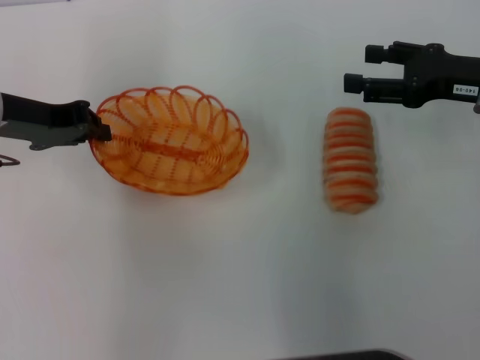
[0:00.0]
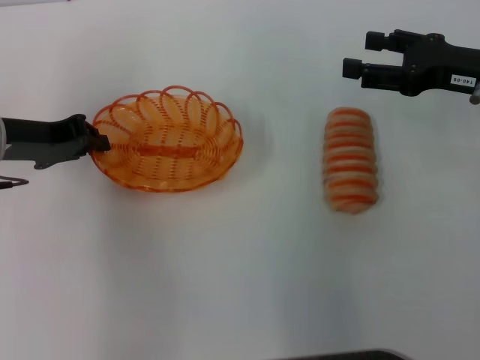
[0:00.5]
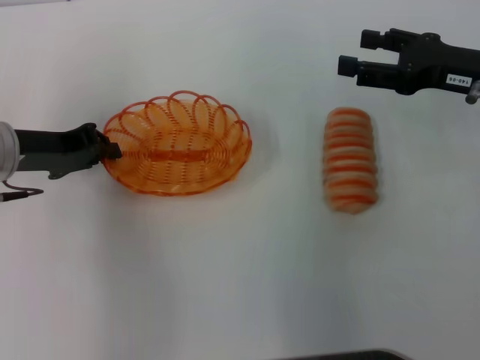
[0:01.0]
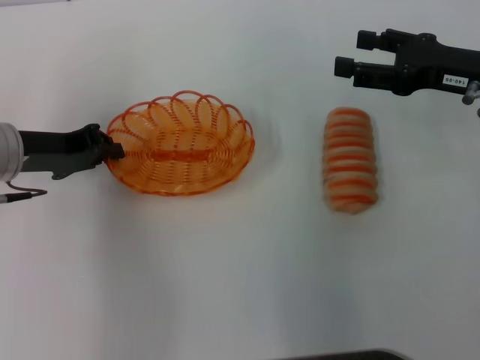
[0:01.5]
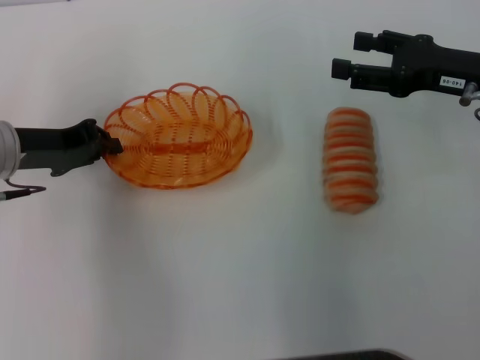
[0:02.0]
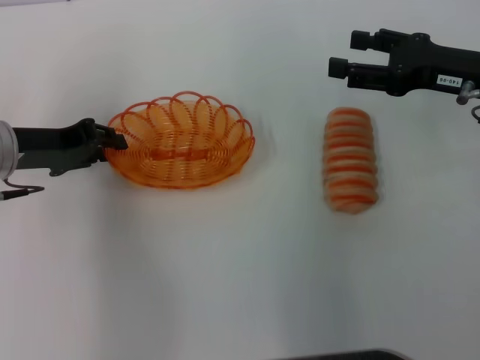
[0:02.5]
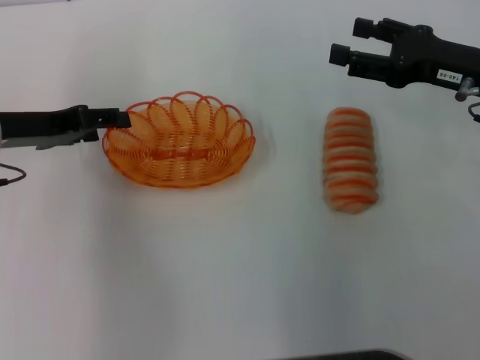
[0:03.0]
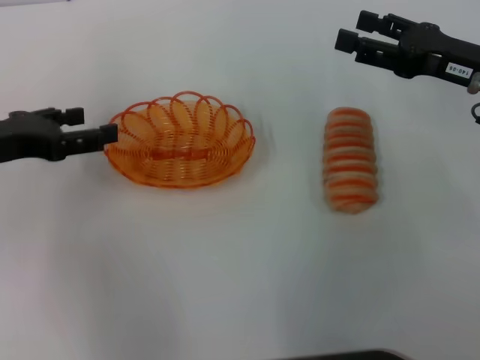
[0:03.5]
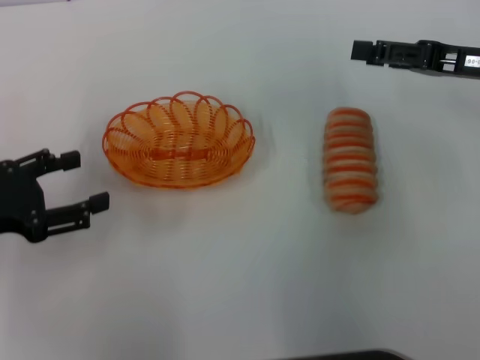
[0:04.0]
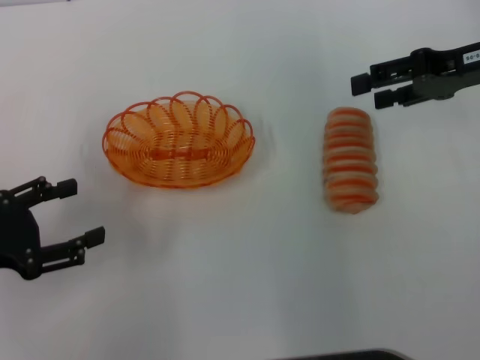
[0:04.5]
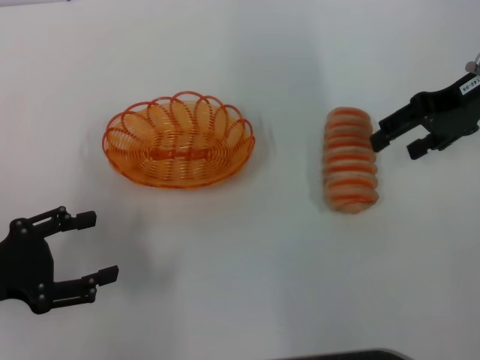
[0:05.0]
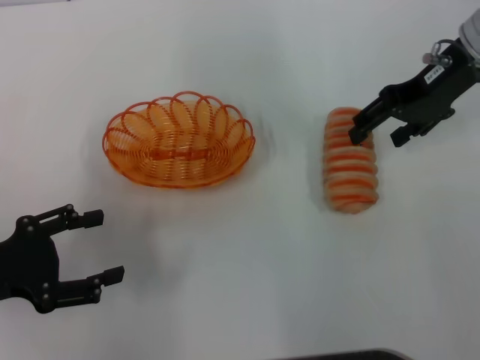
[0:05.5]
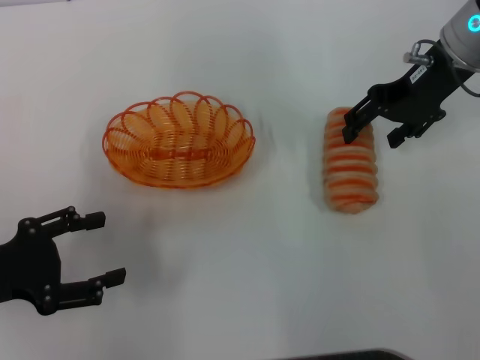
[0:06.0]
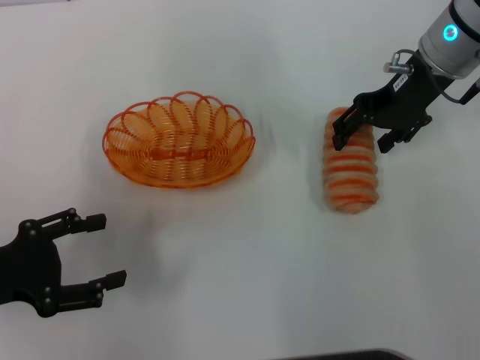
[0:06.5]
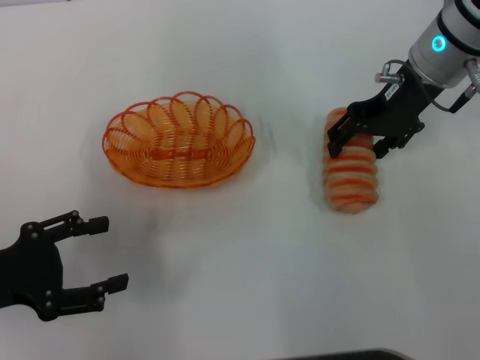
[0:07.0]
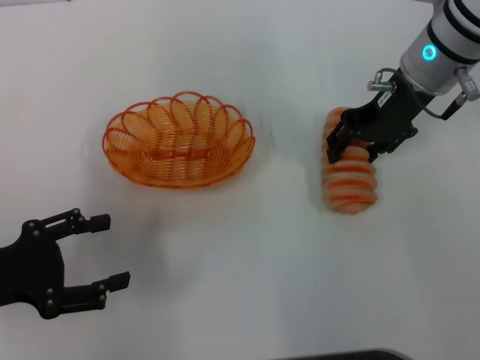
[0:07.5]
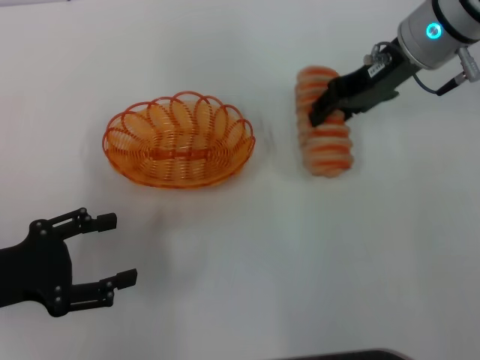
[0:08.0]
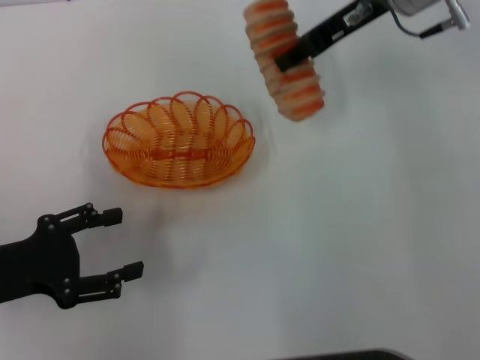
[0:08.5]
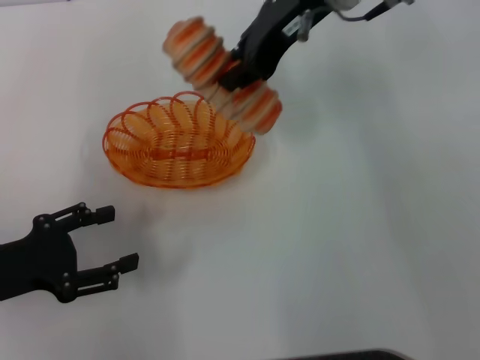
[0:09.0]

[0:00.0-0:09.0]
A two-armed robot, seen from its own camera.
Step, 0:00.0 to 0:03.0: Place the basket in the center of view with the left gripper.
Step, 0:03.5 to 0:07.5: Pick up the long bread with the right gripper.
0:00.0 to 0:02.0: The left gripper shifts by some 5 cm.
0:02.0 to 0:04.5: The right gripper heads upward, covering approximately 5 cm. Meanwhile the left gripper shifts roughly 15 cm backward and to the left, and opens up.
0:04.5 to 0:07.0: The right gripper heads to the left, covering about 10 cm.
0:07.0 to 0:09.0: The right gripper travels to the left and upward by roughly 10 cm, and closes its fingers.

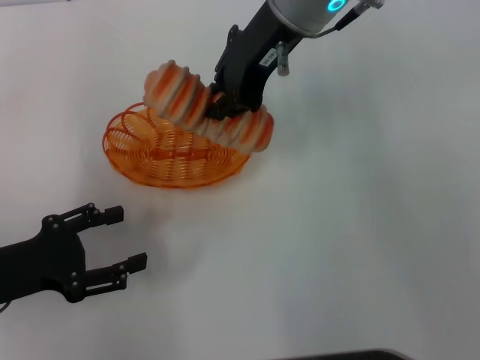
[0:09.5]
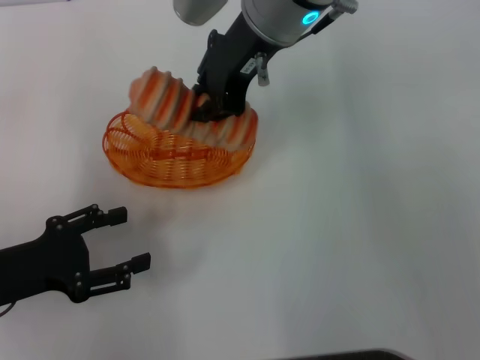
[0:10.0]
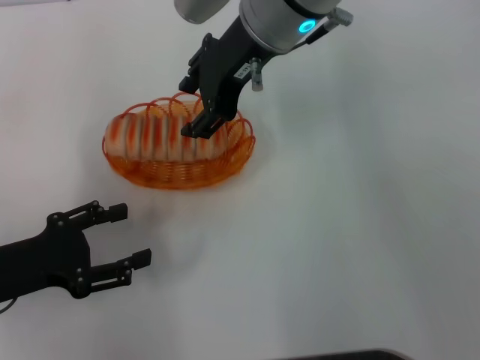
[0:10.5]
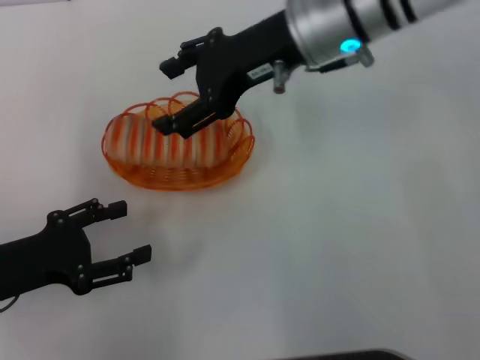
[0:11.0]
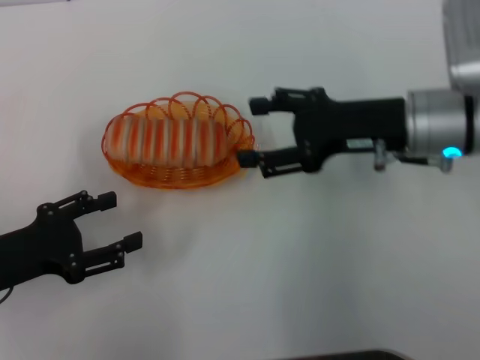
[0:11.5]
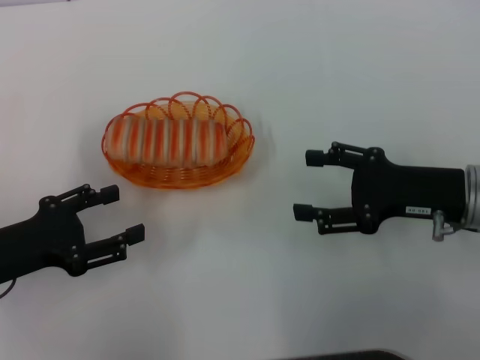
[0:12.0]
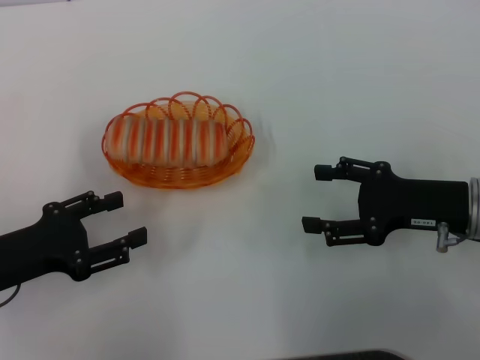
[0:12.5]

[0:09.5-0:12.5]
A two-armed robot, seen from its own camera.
0:09.5 to 0:11.0: The right gripper opens.
0:11.0 to 0:12.5: The right gripper shifts roughly 25 cm to the right, downward and backward.

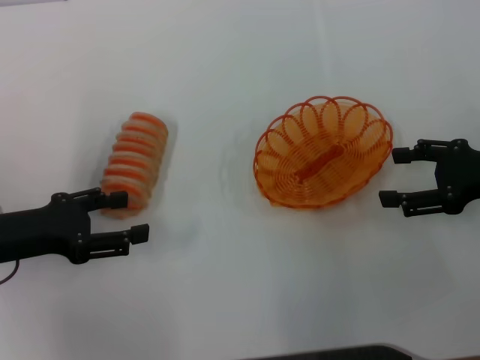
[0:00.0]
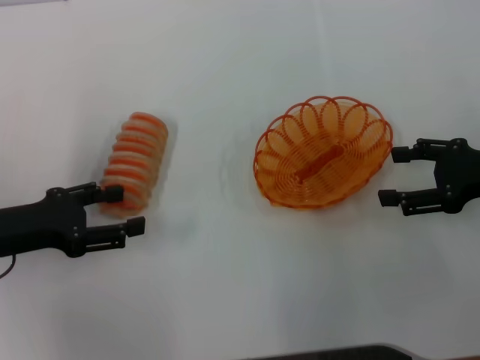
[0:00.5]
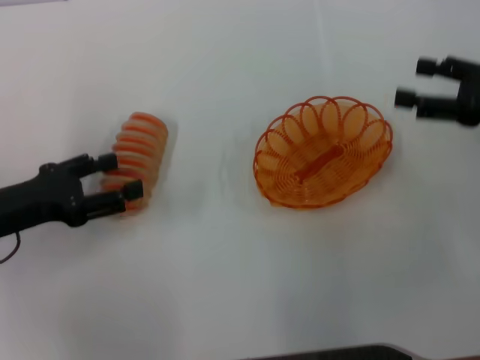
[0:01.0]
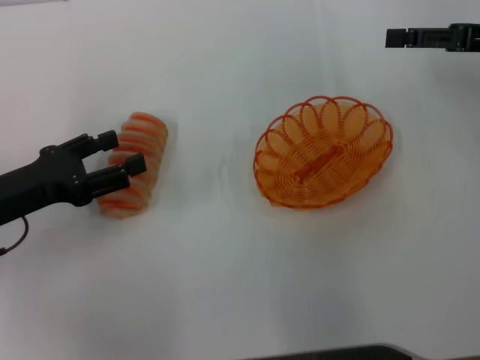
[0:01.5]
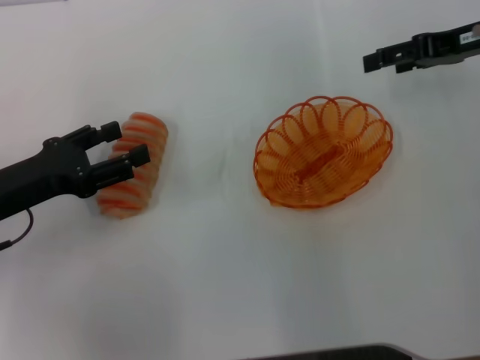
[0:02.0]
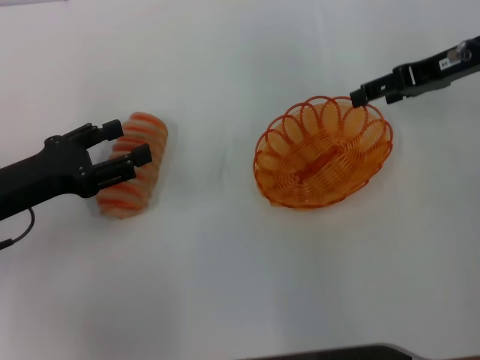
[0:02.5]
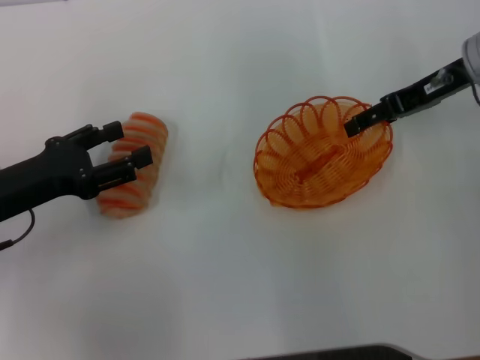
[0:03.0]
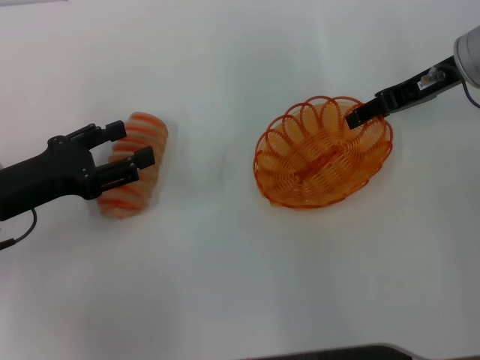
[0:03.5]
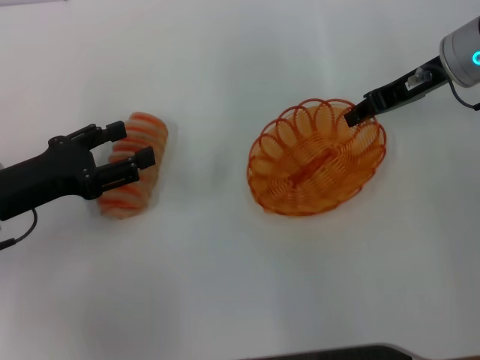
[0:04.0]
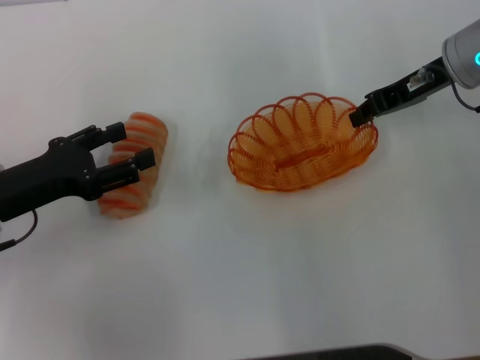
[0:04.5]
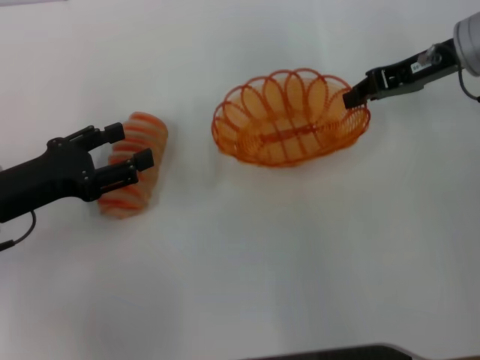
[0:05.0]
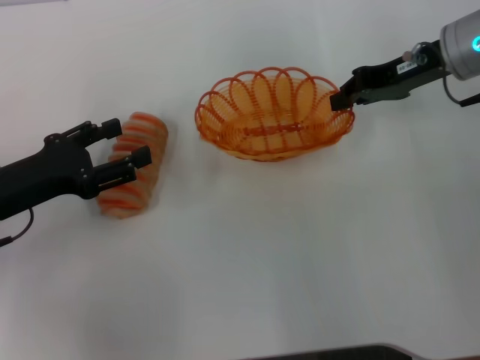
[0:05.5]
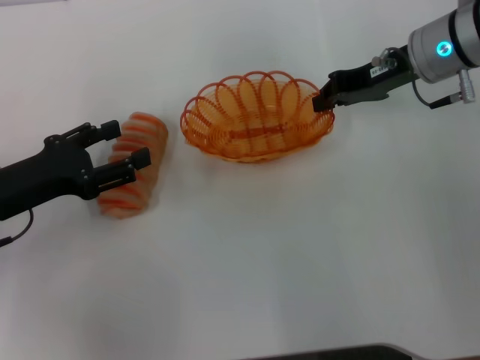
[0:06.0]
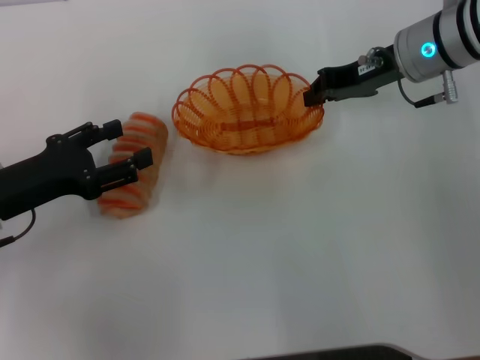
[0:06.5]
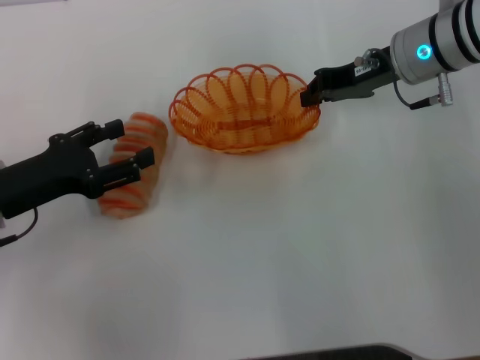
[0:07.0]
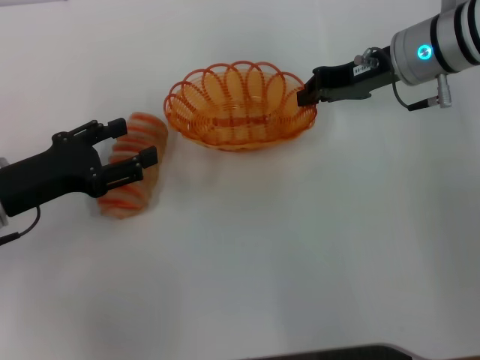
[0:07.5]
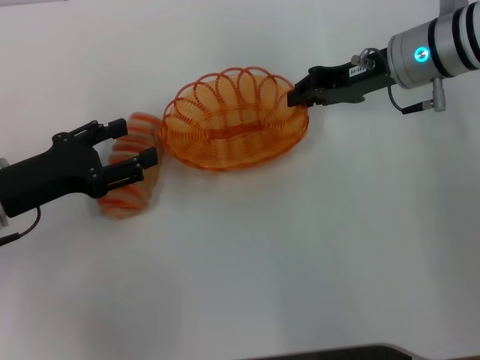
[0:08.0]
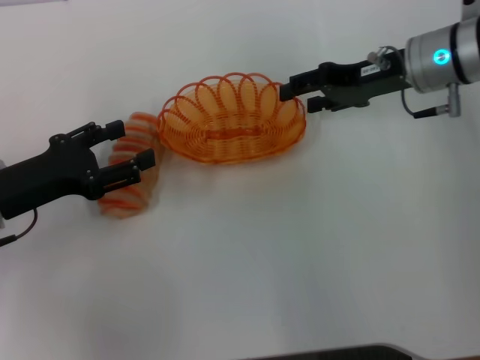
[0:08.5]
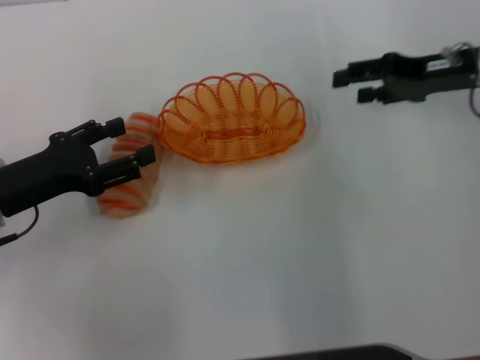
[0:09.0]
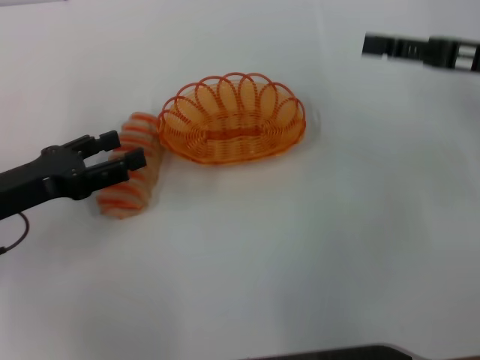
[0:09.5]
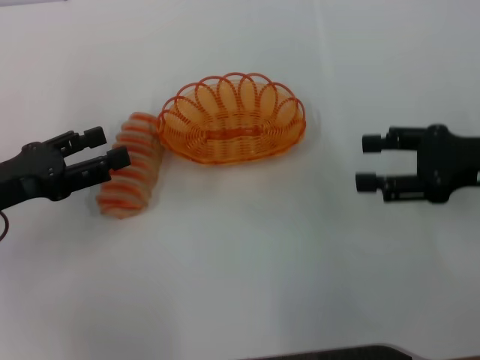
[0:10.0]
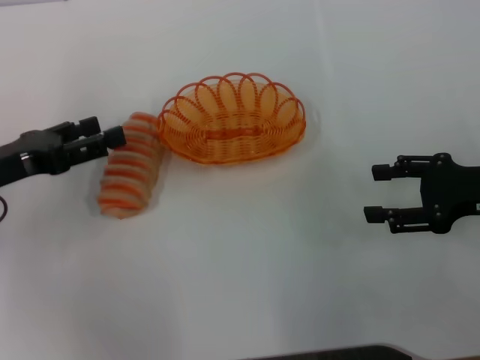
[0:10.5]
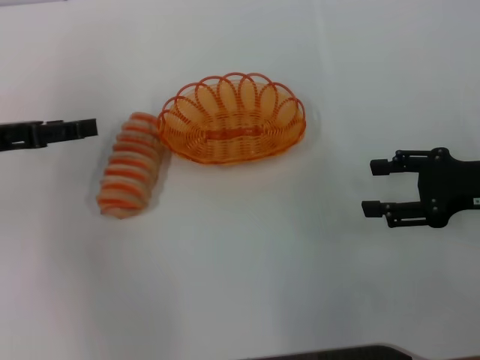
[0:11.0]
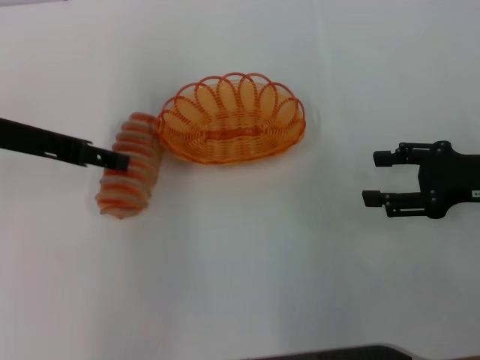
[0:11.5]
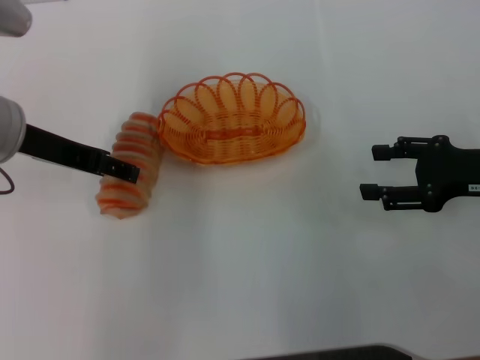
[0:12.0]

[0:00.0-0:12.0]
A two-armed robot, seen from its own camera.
Step, 0:00.0 to 0:04.5: Pick up the basket with the right gripper.
Step, 0:05.0 to 0:08.5: Place the basket in the center of view with the right gripper.
0:00.0 to 0:02.0: The right gripper is displaced forward and upward by roughly 15 cm.
0:02.0 to 0:04.0: The right gripper is displaced to the left by about 5 cm, and closes up.
0:04.0 to 0:06.0: The grippers make only small movements.
0:06.0 to 0:08.0: The grippers move only a little.
0:08.0 to 0:10.0: The right gripper shifts some 15 cm backward and to the right, and opens.
0:10.0 to 0:12.0: The left gripper moves to the right, upward and forward, approximately 15 cm.

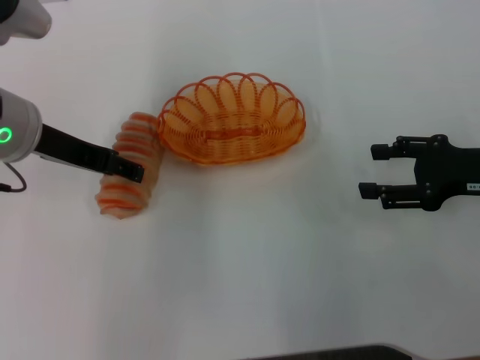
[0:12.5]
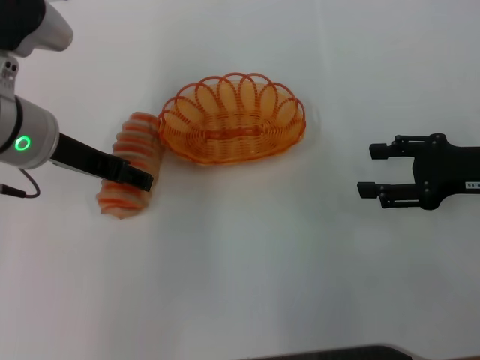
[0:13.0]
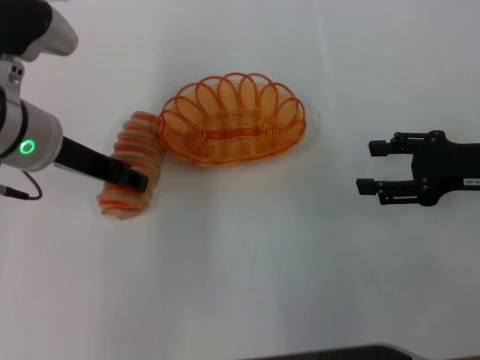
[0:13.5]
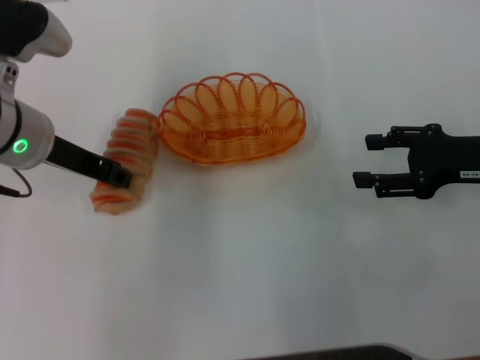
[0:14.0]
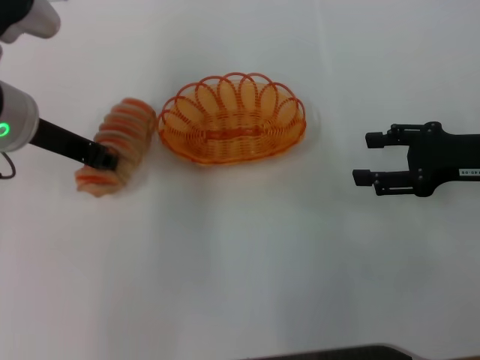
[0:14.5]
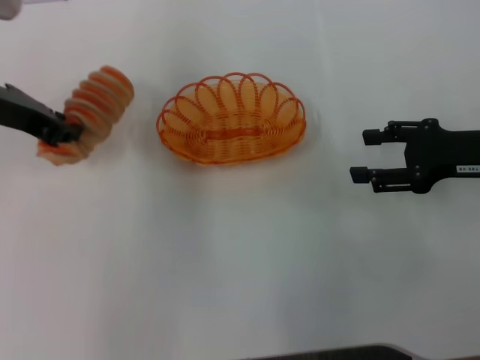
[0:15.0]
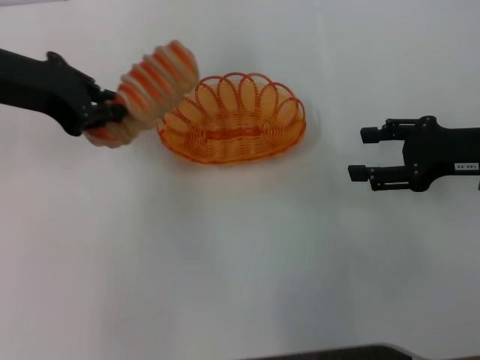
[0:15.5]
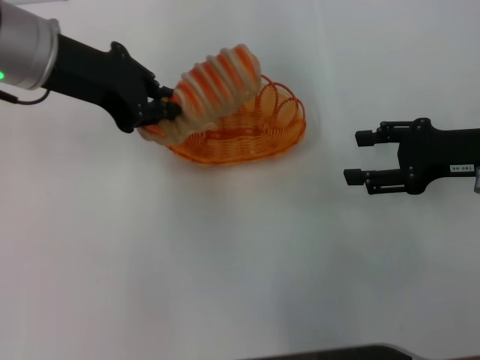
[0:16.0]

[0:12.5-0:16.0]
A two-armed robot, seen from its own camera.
Step, 0:12.5 to 0:14.5: Pick up the long bread with the left gripper.
0:12.5 to 0:14.5: The left gripper closes.
0:14.5 to 0:16.0: The left gripper goes some 5 cm upward.
